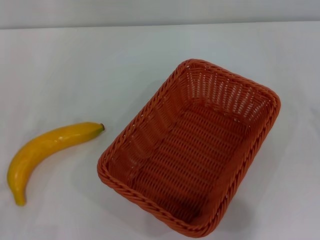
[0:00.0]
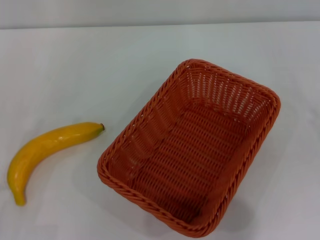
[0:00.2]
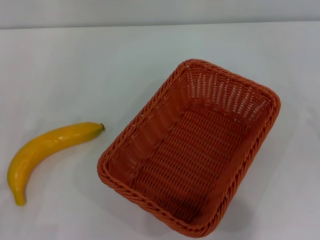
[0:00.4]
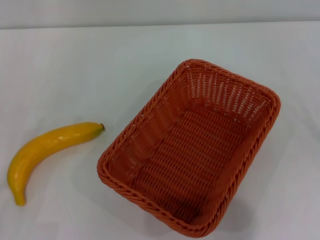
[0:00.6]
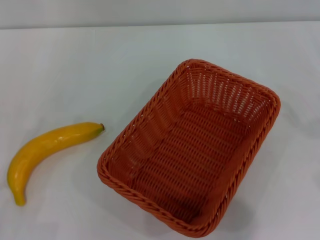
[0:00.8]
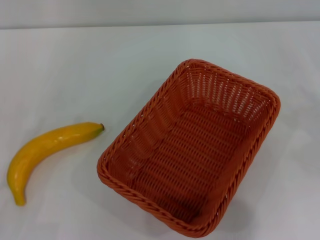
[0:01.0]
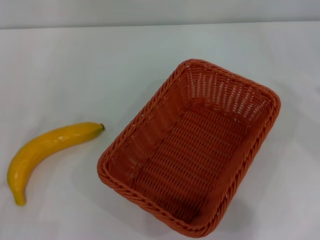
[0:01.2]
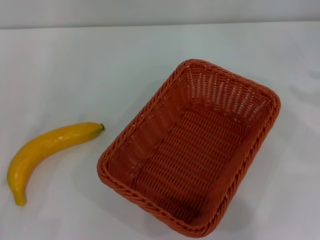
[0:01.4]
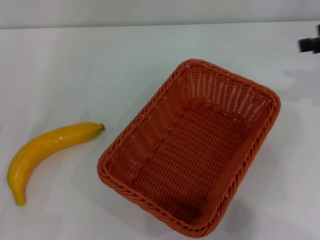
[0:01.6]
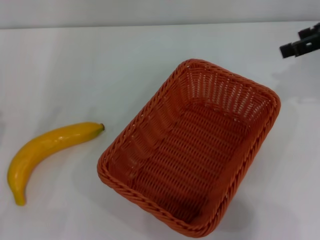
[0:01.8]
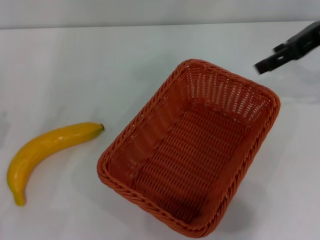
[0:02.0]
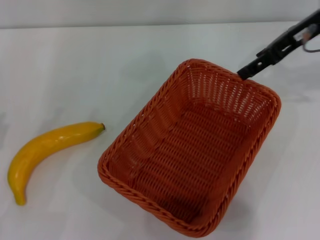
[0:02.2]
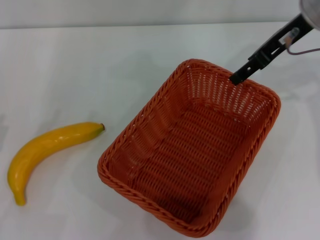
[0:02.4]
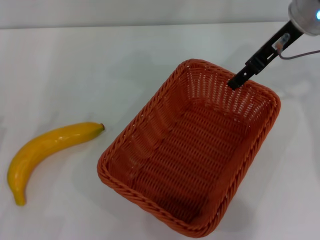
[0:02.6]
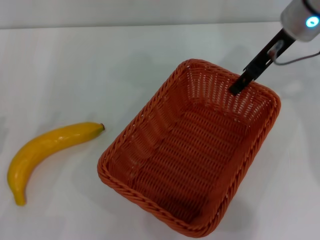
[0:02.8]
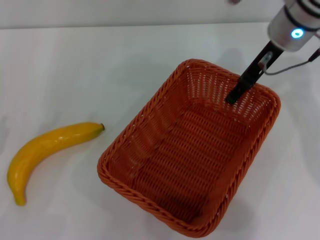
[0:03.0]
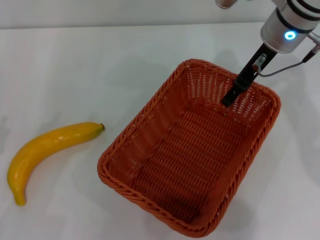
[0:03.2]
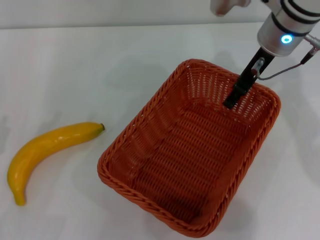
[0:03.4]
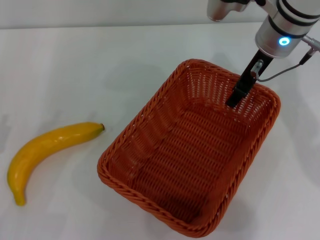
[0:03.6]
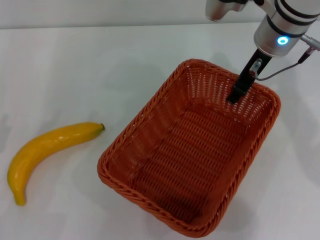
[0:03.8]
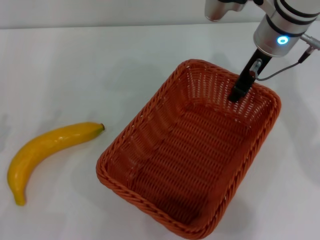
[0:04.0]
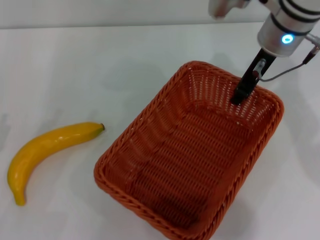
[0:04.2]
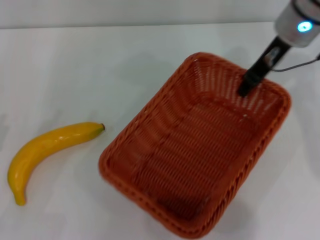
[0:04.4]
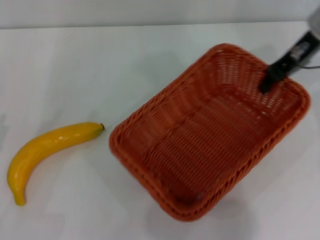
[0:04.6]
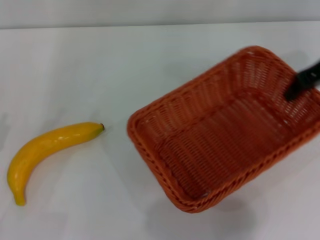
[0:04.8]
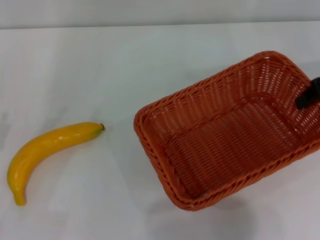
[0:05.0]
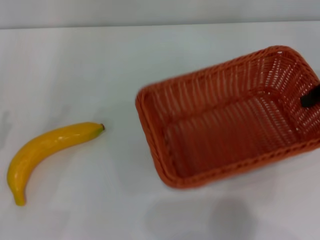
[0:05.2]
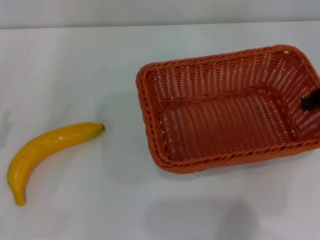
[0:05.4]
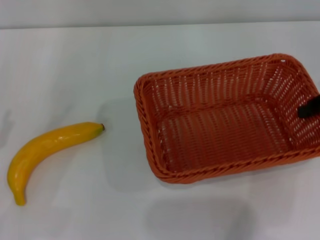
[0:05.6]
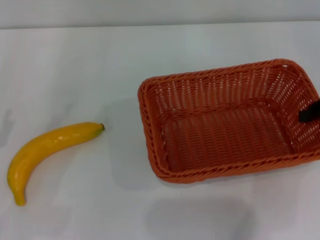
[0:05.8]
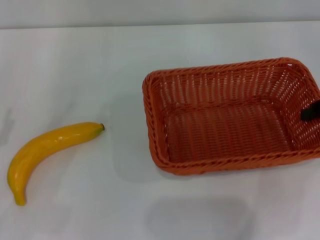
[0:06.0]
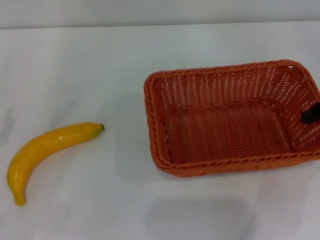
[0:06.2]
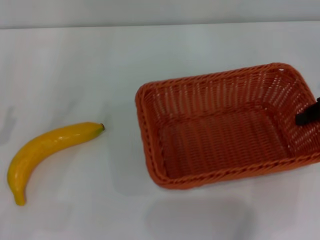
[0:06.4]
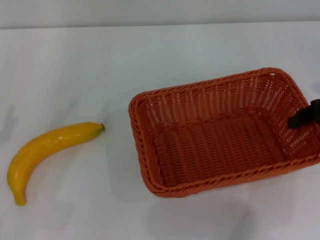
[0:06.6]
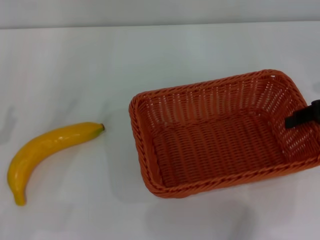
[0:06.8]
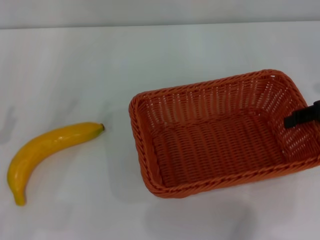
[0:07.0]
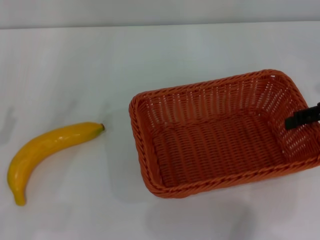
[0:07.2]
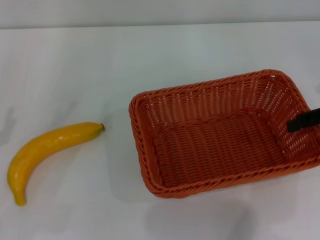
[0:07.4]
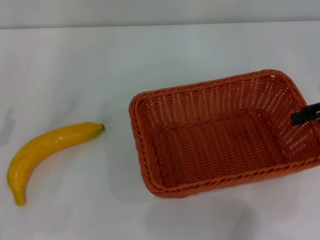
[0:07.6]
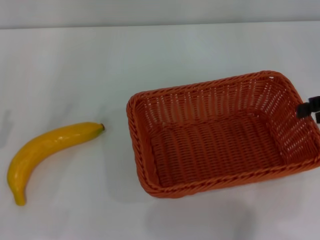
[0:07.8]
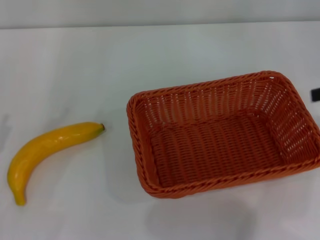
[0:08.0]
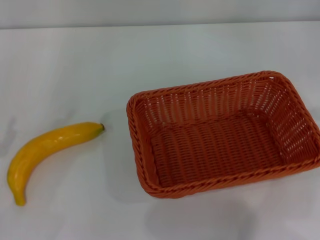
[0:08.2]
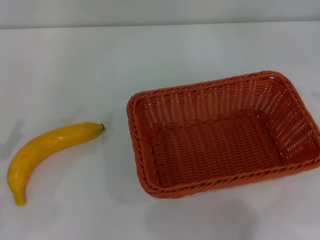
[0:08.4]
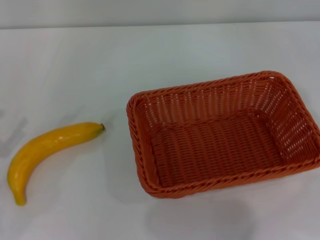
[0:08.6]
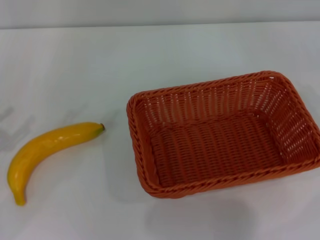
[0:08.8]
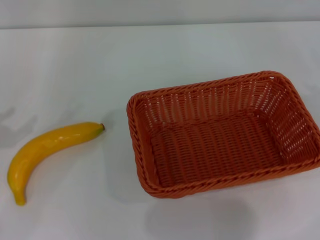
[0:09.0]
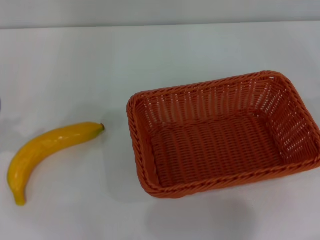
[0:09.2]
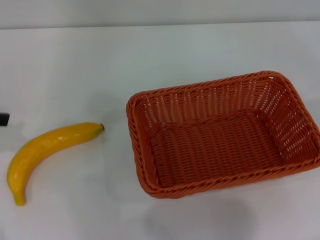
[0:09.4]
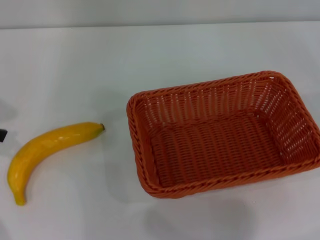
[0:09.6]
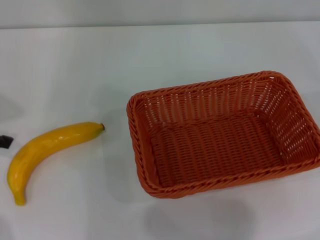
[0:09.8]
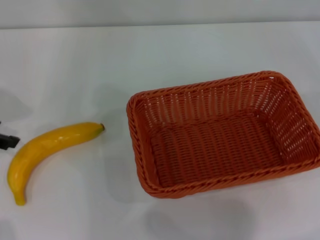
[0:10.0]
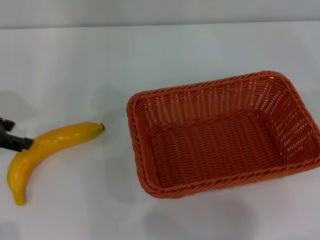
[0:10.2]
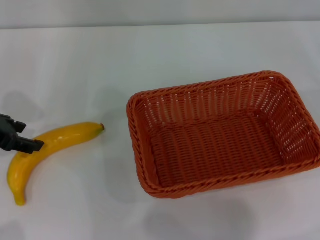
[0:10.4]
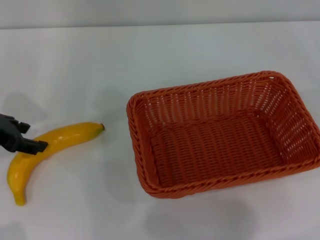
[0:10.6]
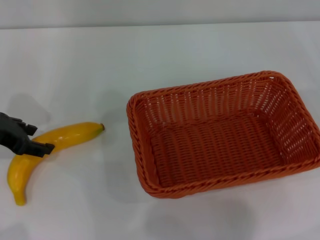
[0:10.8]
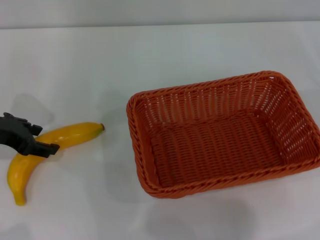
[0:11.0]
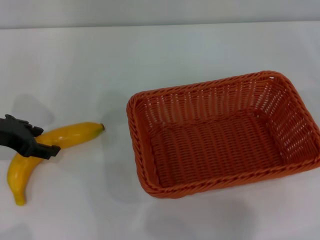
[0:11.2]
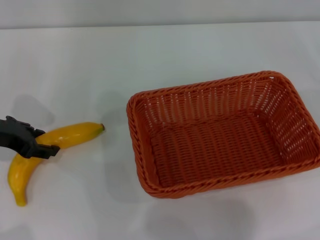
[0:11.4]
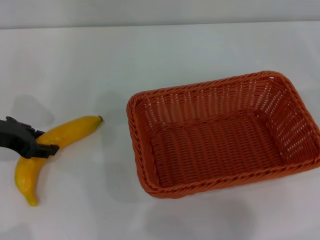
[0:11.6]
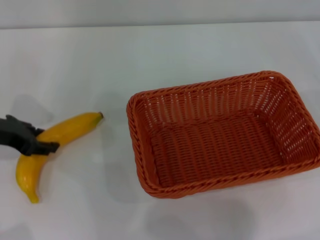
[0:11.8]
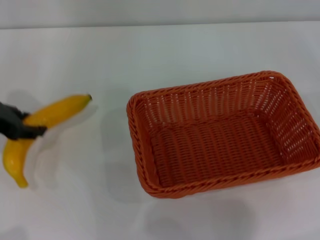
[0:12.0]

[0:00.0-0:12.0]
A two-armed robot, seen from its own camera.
Step, 0:00.0 to 0:04.4: Pick up the light basket with the right gripper.
Step, 0:04.6 to 0:07.8: Place the light basket in the center of view with the right gripper.
Step, 0:08.0 to 0:11.8: Pick up the banana with the left gripper.
0:01.6 to 0:03.0: The right gripper moves to the left, approximately 15 cm.
0:03.0 to 0:04.4: The right gripper closes up.
0:04.4 to 0:06.0: The right gripper shifts some 20 cm to the right and backward.
0:06.0 to 0:07.6: The right gripper opens up.
0:07.6 to 0:09.0: The left gripper travels upward and to the left by roughly 10 cm. Meanwhile the right gripper heads to the right, covering some 10 cm.
0:09.0 to 0:10.4: The left gripper moves forward and to the right, approximately 10 cm.
0:10.4 to 0:12.0: The left gripper closes its fingers.

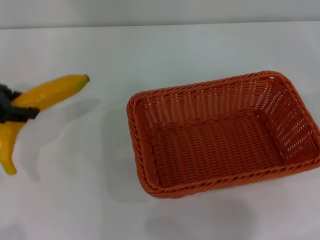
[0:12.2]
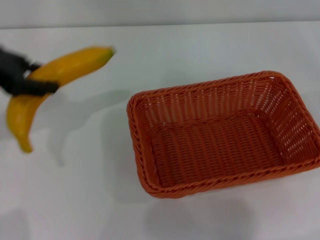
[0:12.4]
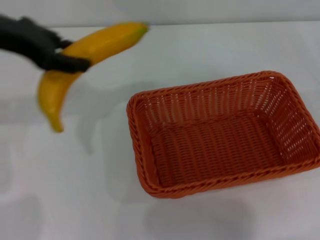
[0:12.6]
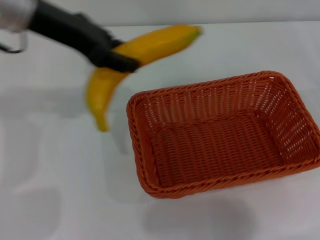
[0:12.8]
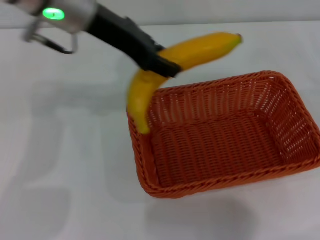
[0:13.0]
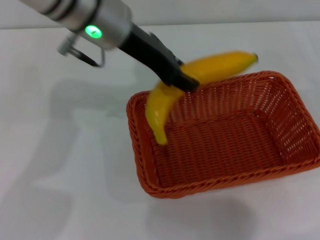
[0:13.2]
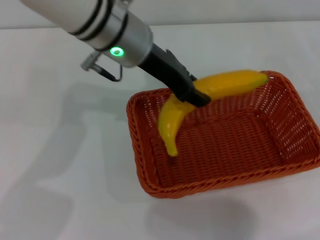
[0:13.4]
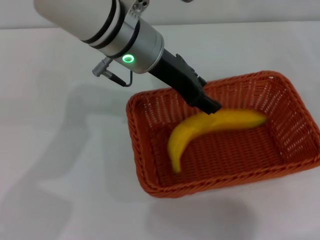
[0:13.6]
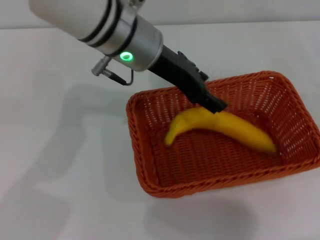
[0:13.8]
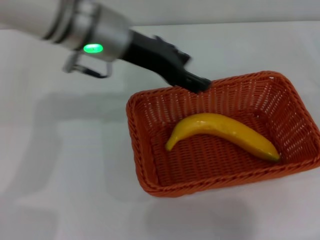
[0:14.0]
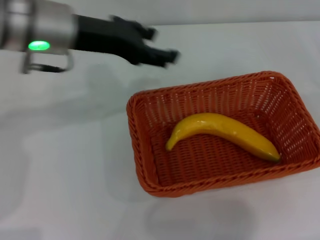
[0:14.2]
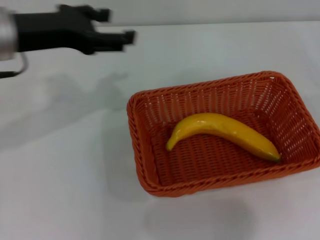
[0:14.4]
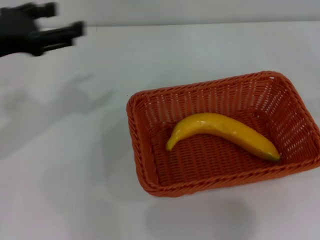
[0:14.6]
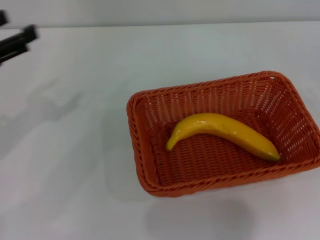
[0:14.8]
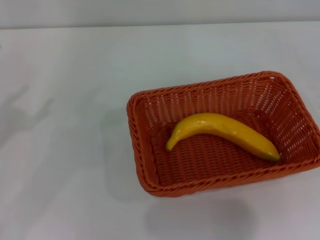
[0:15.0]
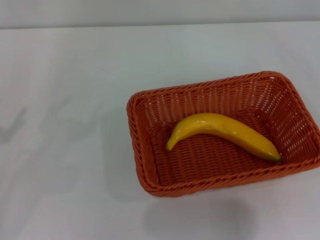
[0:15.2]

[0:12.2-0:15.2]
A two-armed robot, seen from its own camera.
Step, 0:12.2 to 0:13.6: Place the banana into the light basket with the left gripper.
0:12.2 to 0:13.8: The left gripper goes about 25 cm to the right.
0:13.8 to 0:15.2: The right gripper is displaced downward and backward by approximately 10 cm; the left gripper heads to the left and backward, covering about 35 cm, and opens up.

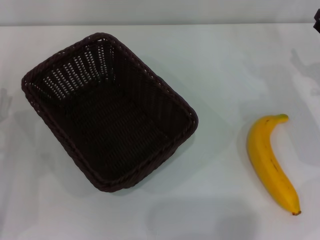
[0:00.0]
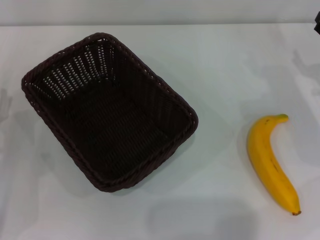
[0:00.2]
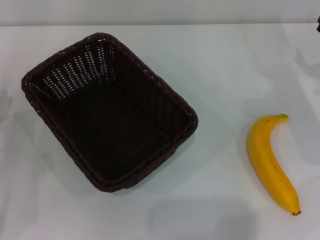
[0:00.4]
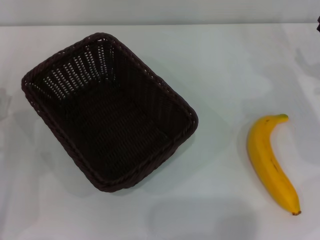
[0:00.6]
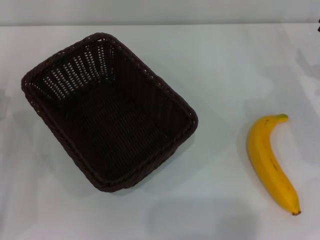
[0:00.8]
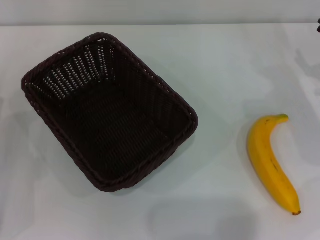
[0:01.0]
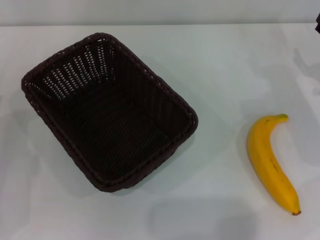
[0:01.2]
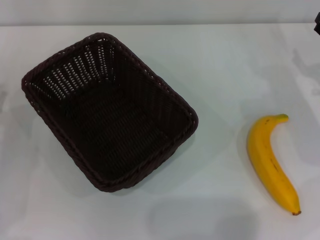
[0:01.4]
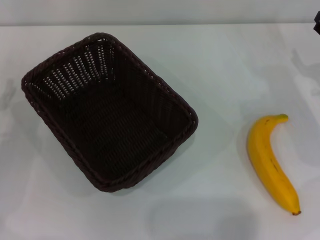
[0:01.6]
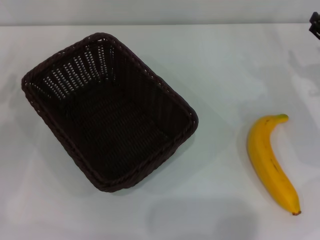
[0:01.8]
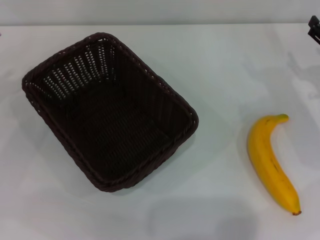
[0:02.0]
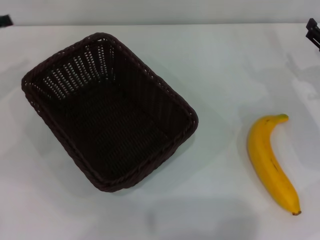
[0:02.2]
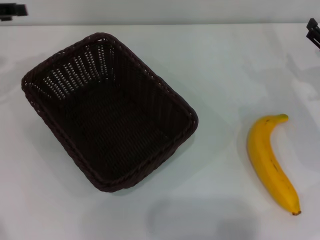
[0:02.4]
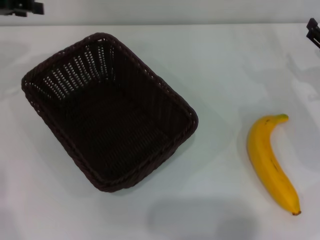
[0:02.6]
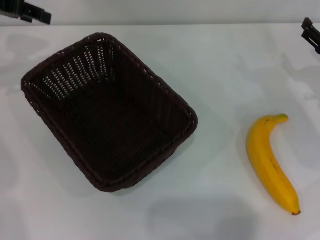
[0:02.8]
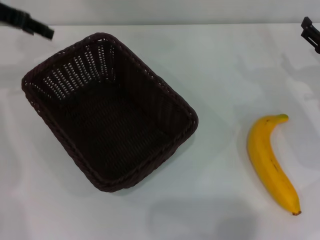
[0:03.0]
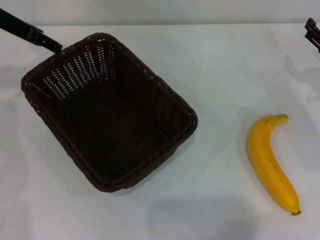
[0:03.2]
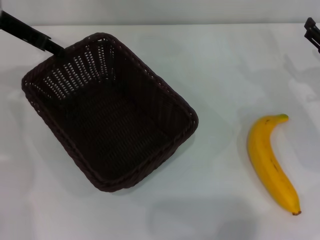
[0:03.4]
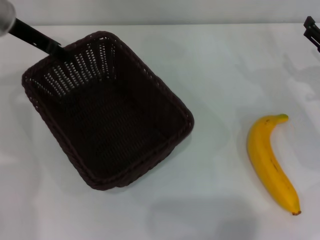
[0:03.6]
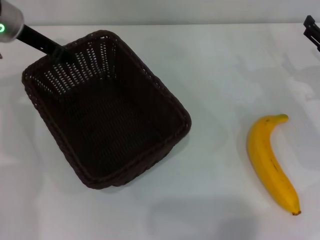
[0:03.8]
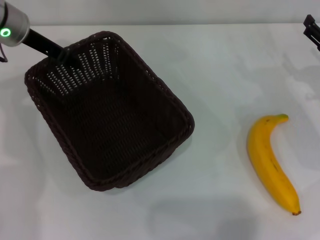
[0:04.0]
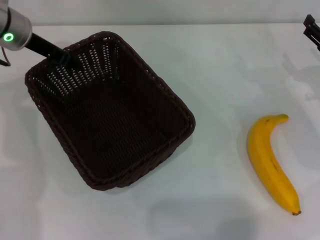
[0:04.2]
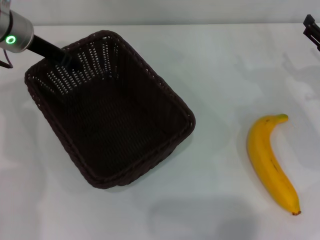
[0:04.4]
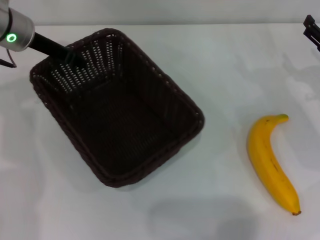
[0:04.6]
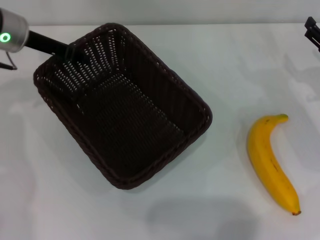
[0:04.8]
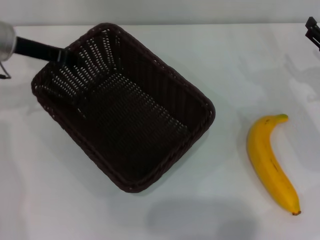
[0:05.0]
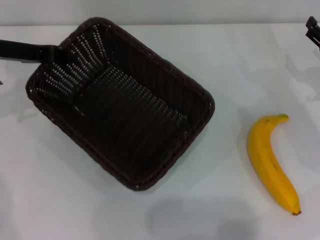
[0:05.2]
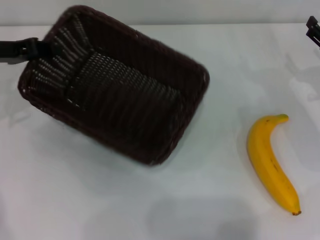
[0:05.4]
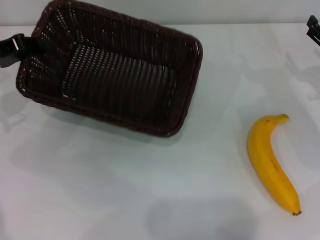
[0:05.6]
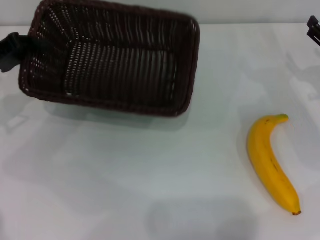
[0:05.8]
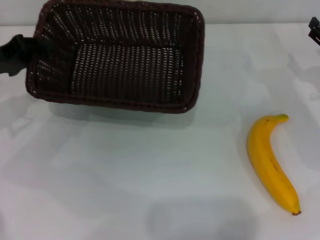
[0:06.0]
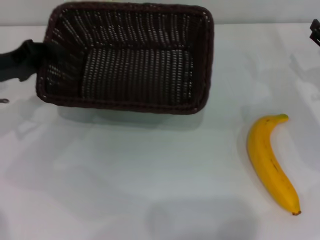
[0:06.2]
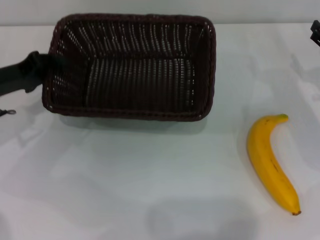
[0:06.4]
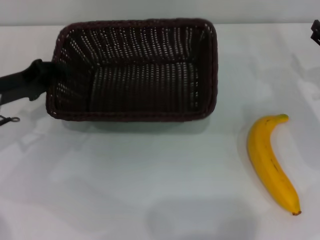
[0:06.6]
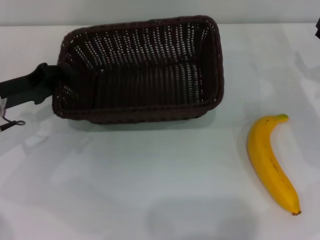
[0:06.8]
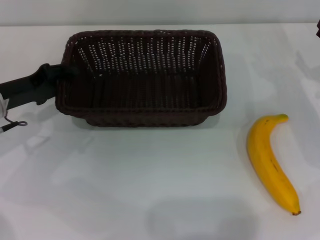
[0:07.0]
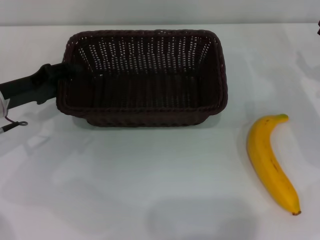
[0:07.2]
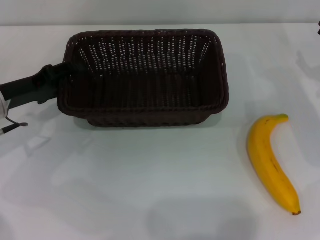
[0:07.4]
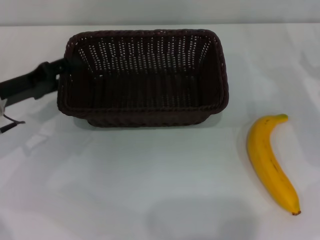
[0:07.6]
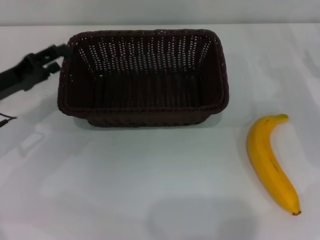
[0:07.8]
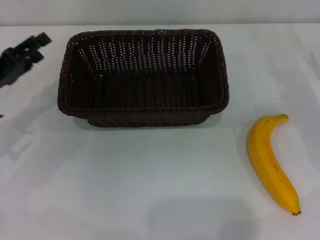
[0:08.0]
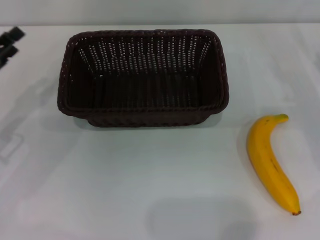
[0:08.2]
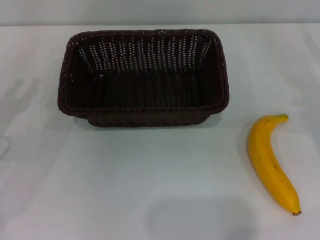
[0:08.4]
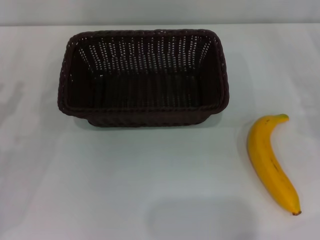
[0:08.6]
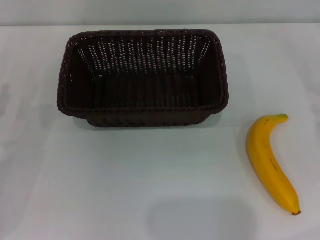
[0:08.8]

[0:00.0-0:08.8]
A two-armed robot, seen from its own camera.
Step, 0:05.4 to 0:07.8: Place the dark basket in the center of view with the right gripper.
0:01.4 to 0:03.0: The left gripper heads upward and forward, covering approximately 25 cm, and closes.
0:03.0 to 0:04.4: The left gripper is displaced downward and to the right by approximately 10 cm.
0:04.4 to 0:05.8: The left gripper is displaced to the left and backward by about 10 cm.
0:05.8 to 0:07.4: The left gripper ends up roughly 5 cm from where it was, and opens.
0:07.4 to 0:08.8: The left gripper is displaced backward and to the left by approximately 10 cm.
